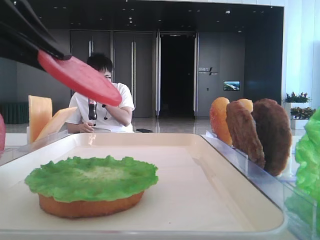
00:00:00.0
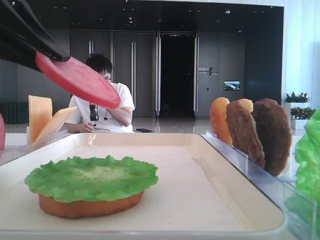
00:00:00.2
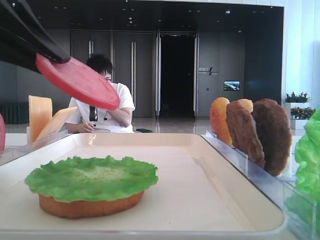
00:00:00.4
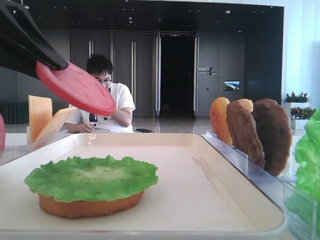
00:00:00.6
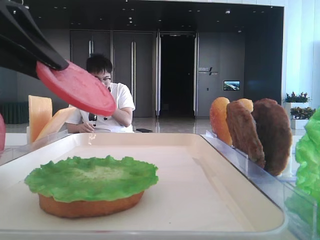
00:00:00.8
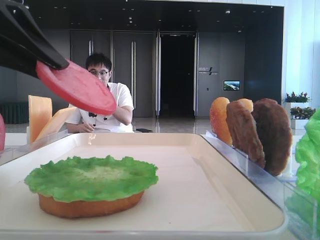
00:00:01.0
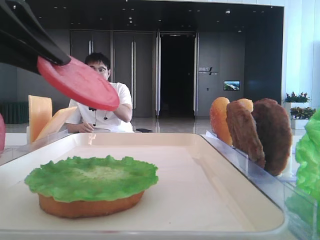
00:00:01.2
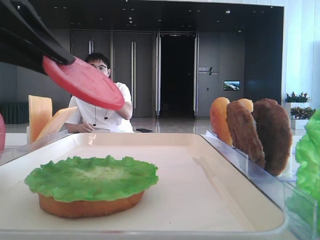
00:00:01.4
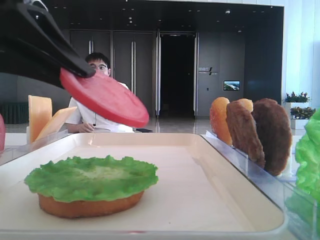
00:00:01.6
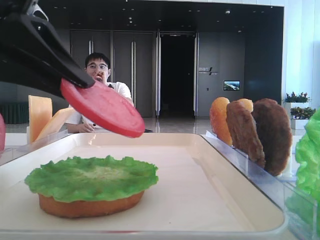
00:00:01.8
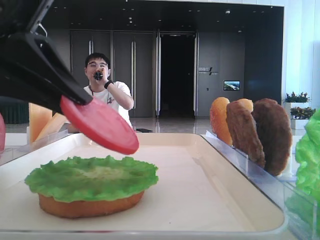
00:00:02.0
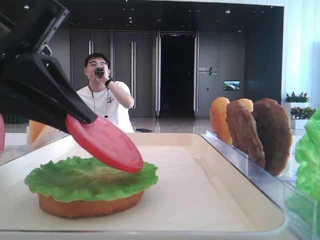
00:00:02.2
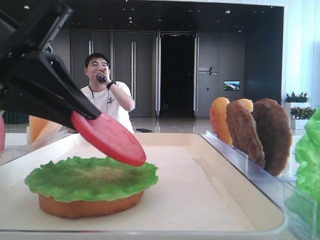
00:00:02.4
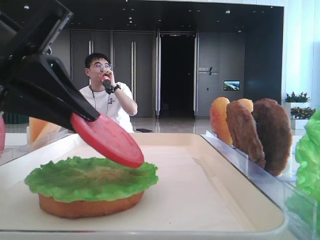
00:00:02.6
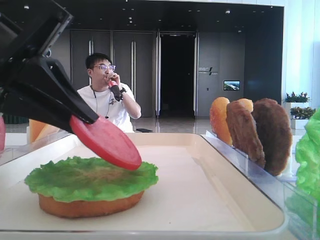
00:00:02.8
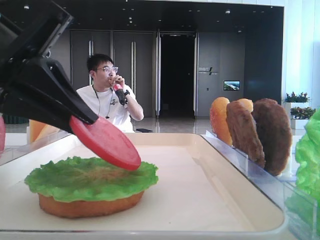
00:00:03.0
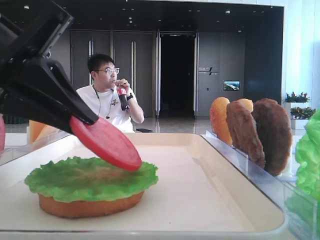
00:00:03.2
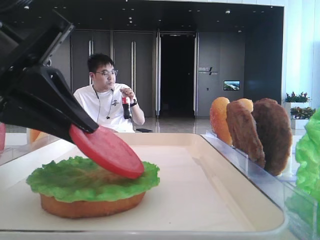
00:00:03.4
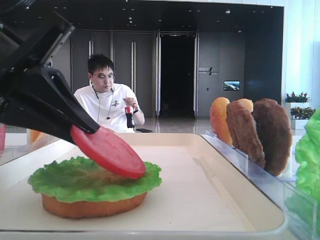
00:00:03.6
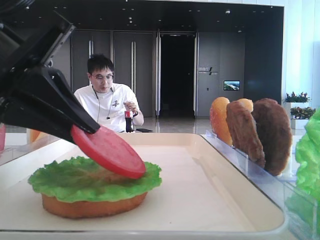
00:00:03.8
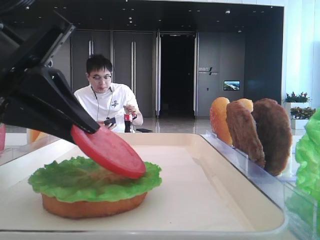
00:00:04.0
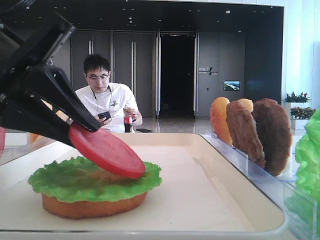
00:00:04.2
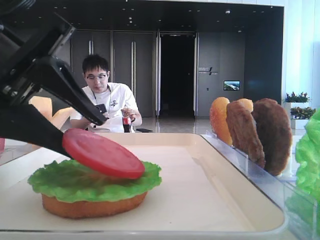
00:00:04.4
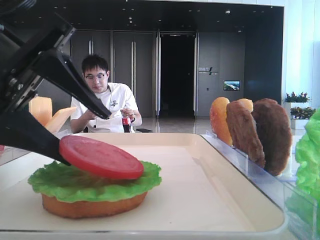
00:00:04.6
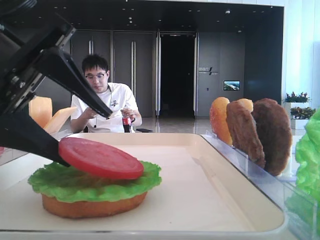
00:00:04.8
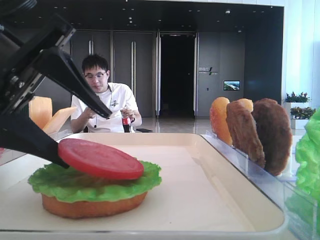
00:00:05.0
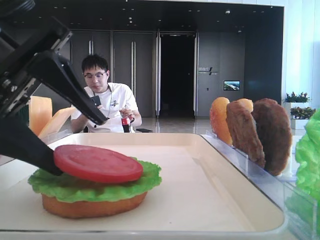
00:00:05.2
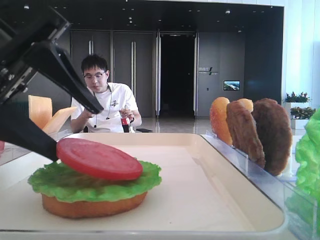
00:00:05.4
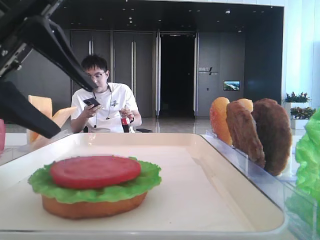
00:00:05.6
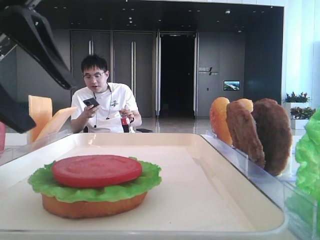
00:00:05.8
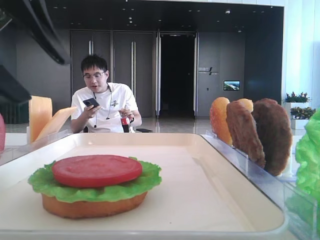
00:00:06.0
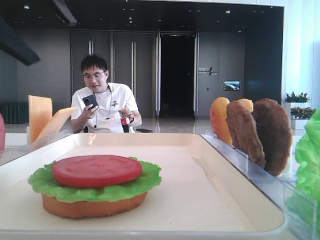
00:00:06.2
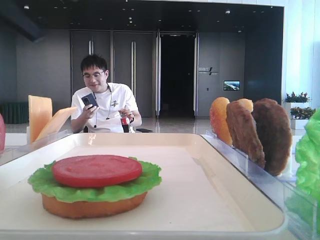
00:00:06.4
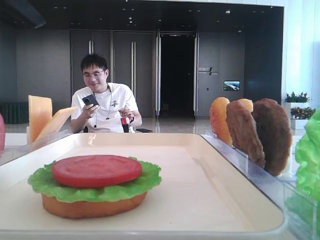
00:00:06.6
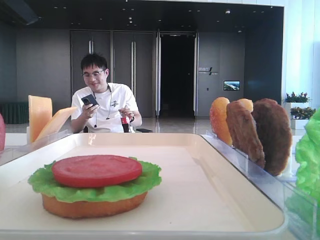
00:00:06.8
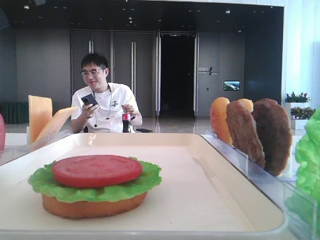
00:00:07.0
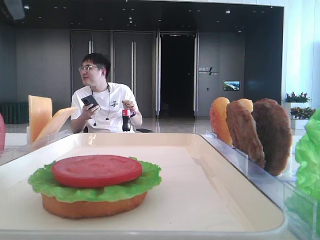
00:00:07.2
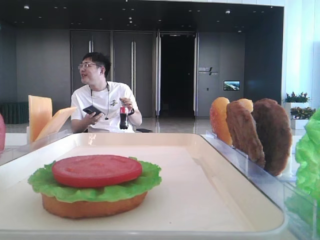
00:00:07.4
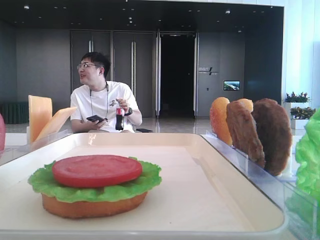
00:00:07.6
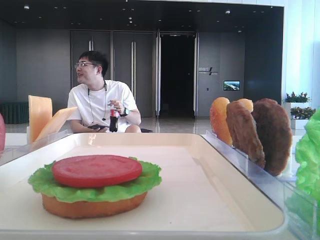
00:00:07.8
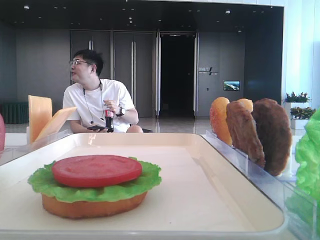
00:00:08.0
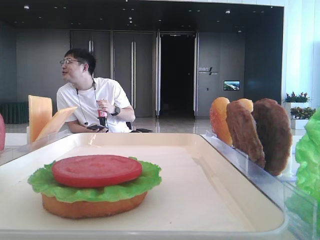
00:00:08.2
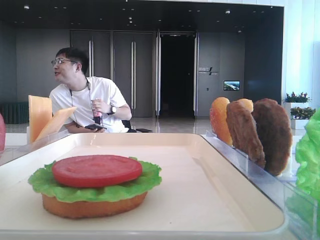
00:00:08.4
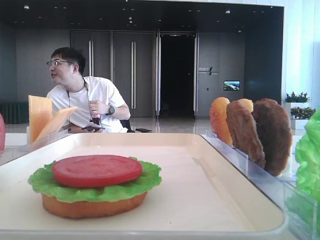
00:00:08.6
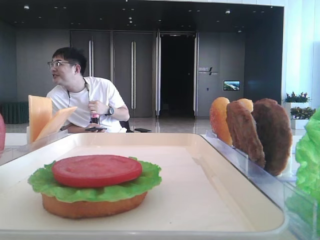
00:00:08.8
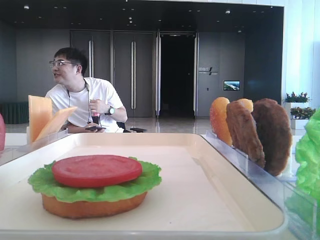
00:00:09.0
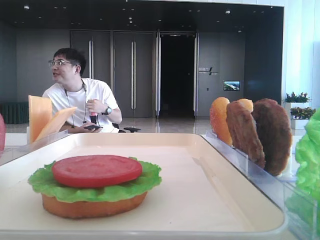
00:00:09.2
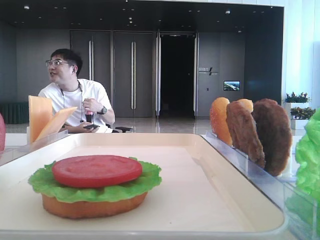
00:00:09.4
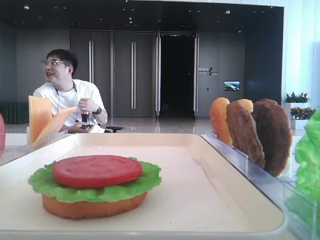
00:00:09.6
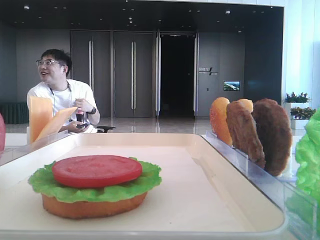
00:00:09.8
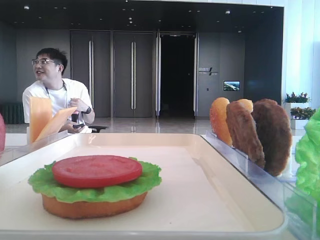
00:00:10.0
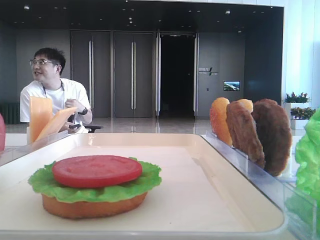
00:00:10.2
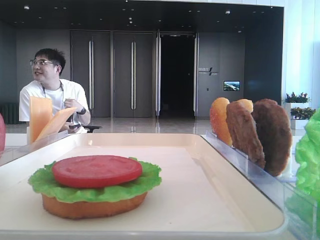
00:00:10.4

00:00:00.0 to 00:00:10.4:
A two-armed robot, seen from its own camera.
Step, 00:00:00.0 to 00:00:05.4: Place the tomato slice on the lettuce leaf with the left hand.
00:00:00.0 to 00:00:01.4: The grippers make only small movements.
00:00:01.4 to 00:00:03.0: The left gripper ends up roughly 5 cm from where it was.
00:00:03.0 to 00:00:04.4: The left gripper opens.
00:00:04.4 to 00:00:06.0: The left gripper travels upward by roughly 5 cm.
00:00:06.0 to 00:00:07.4: The left gripper moves upward, some 10 cm.
00:00:07.4 to 00:00:09.0: The left gripper is displaced to the left by roughly 10 cm.
00:00:09.0 to 00:00:10.4: The left gripper heads backward, covering about 20 cm.

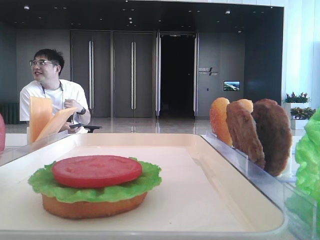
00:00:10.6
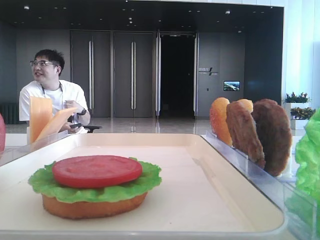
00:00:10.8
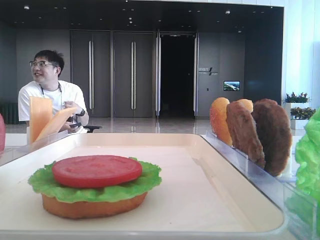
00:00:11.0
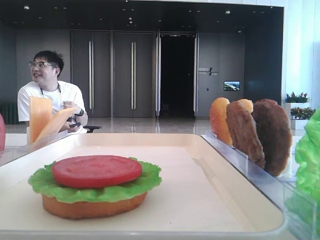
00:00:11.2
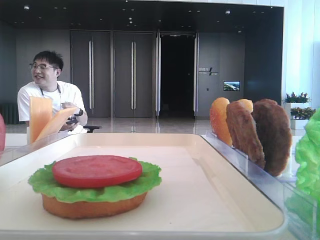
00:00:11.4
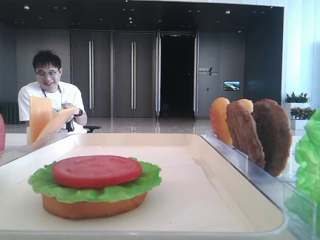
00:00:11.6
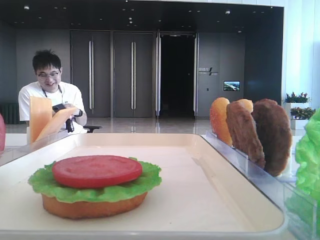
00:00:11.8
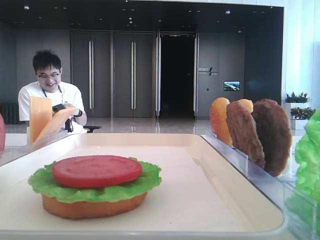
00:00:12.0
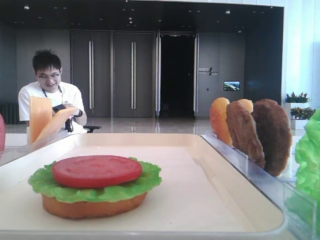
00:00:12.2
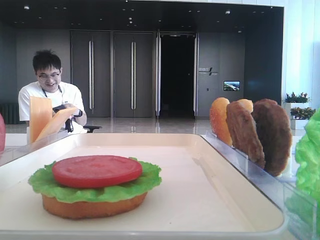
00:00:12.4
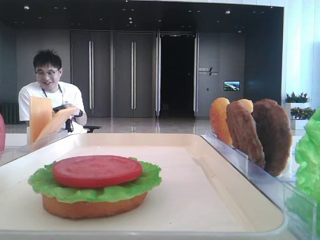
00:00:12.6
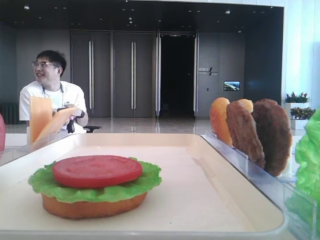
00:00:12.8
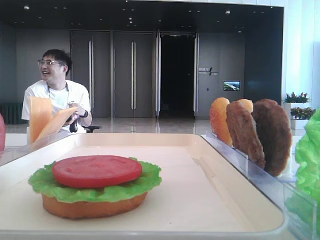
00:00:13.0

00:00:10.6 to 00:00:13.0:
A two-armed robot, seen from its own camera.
00:00:10.6 to 00:00:13.0: Neither gripper changes place.
